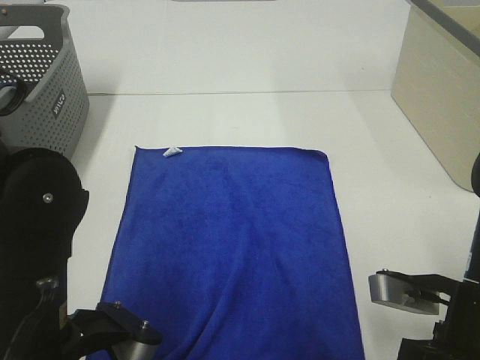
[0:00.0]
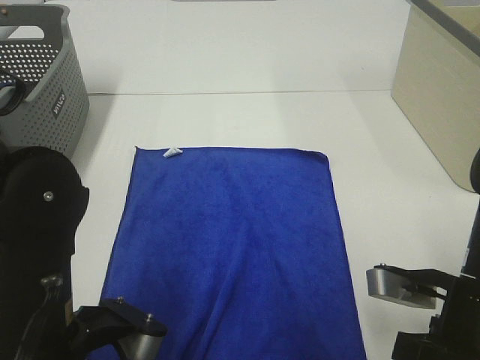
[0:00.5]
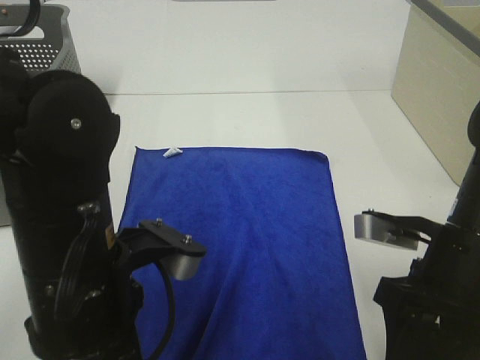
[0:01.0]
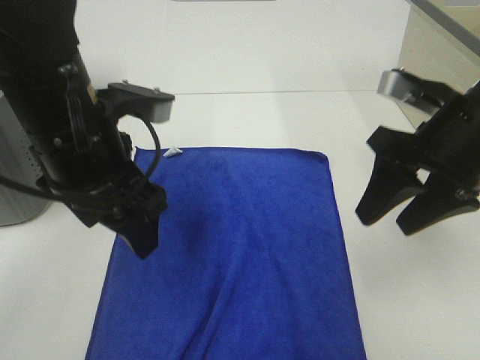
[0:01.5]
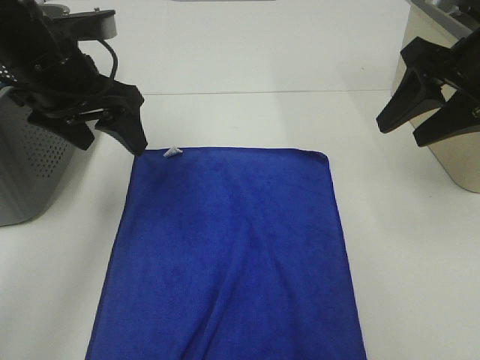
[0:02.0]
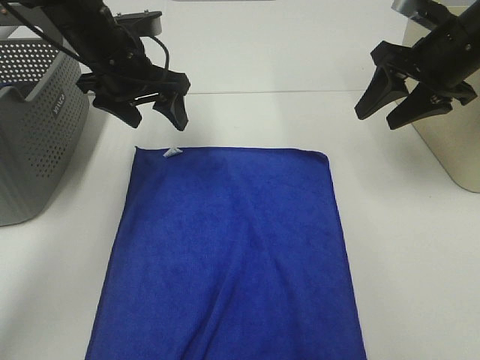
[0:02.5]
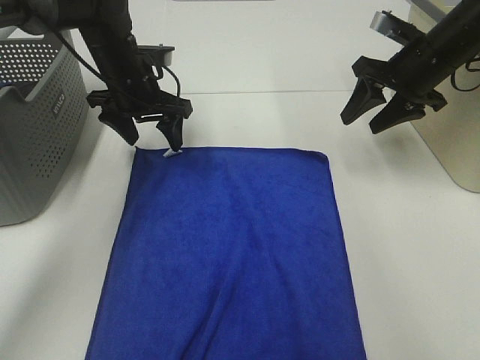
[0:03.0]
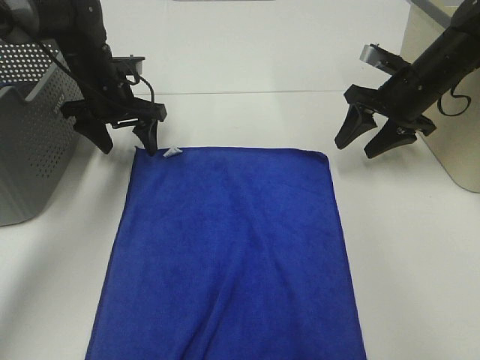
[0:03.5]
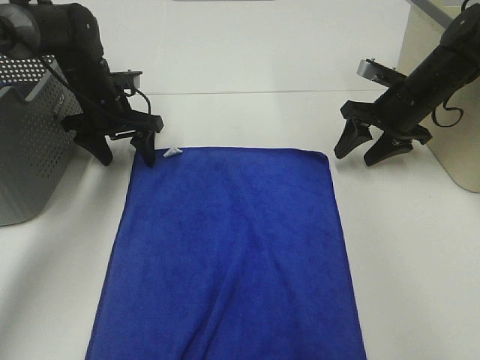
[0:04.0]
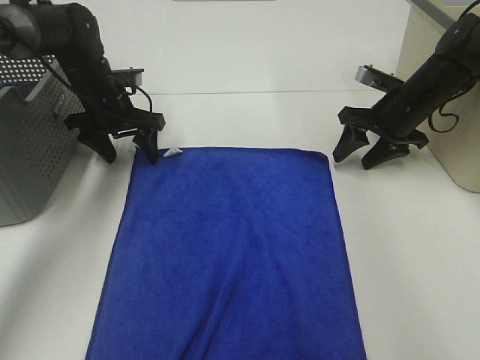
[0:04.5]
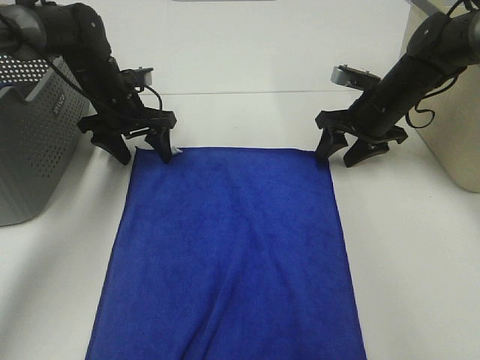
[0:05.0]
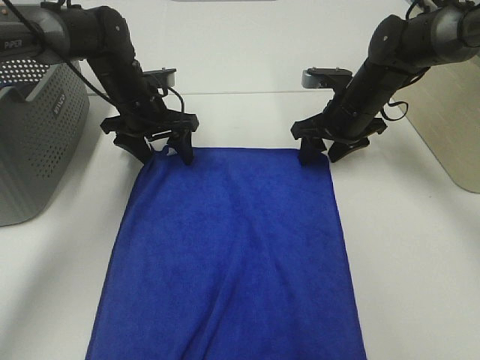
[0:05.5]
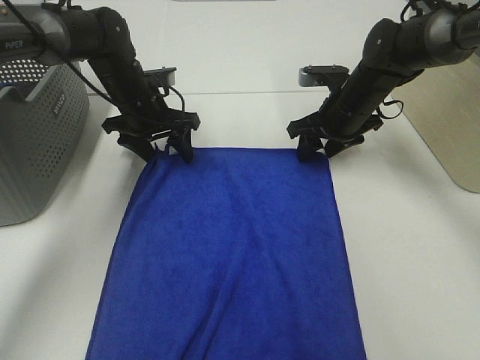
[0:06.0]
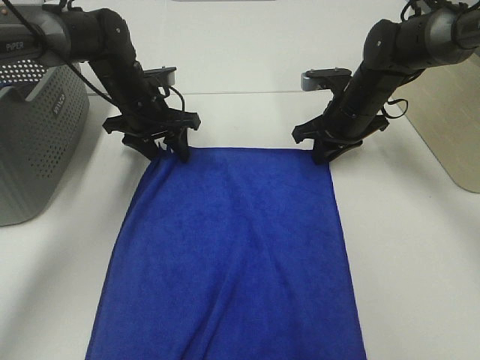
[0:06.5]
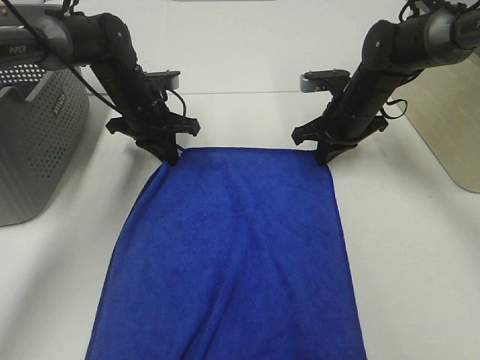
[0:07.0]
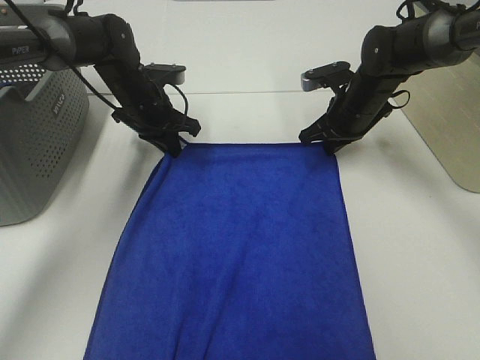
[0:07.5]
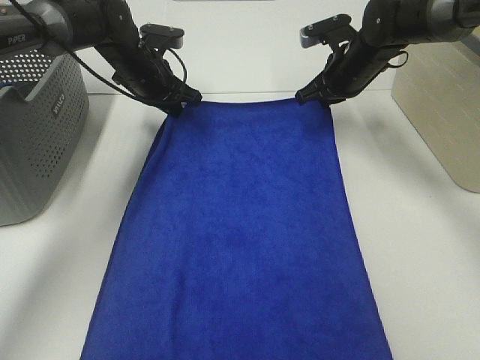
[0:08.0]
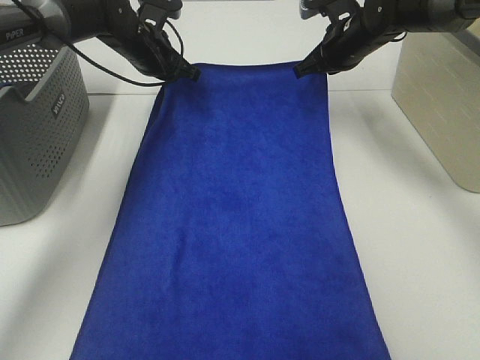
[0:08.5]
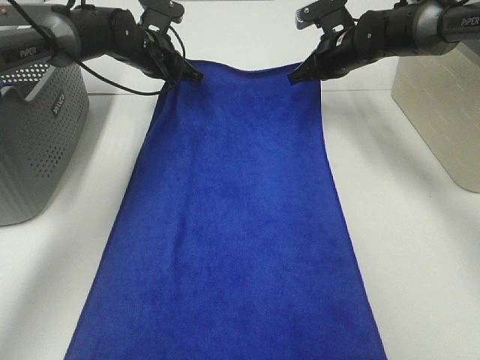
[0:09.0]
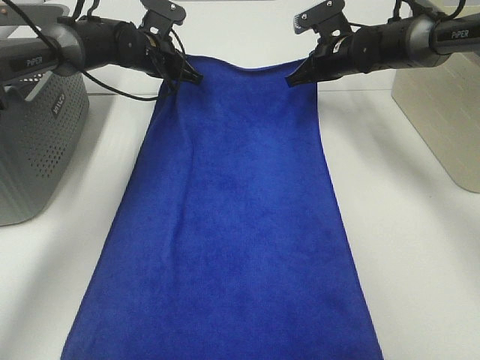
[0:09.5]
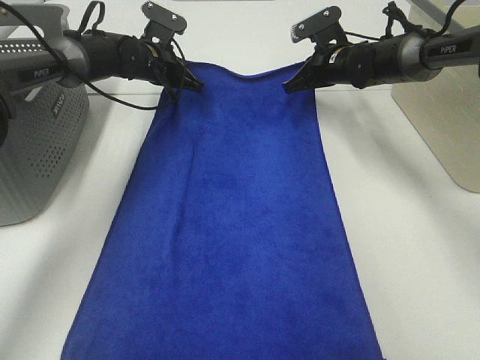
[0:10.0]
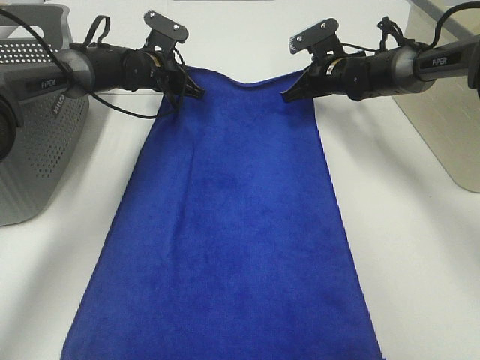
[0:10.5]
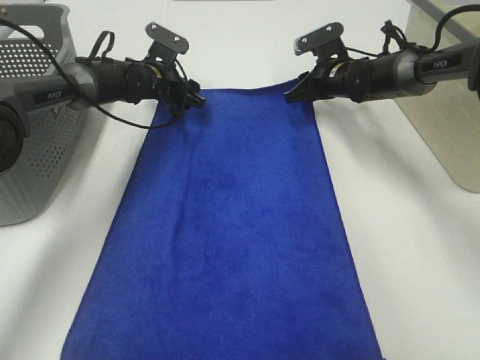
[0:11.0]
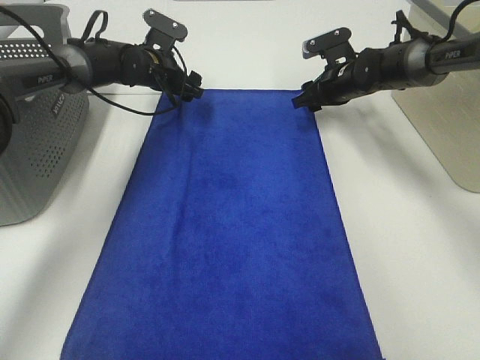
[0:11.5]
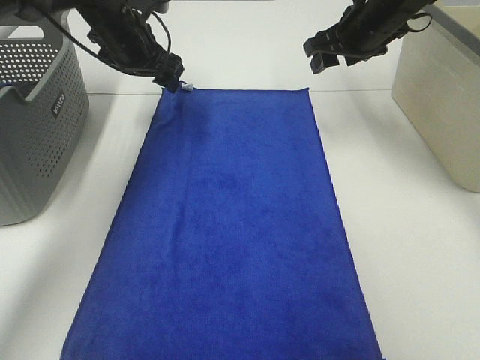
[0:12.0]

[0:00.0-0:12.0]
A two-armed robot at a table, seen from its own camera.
Task of the whole recording: Remove the towel and place it.
Step, 0:00.0 to 0:04.5: Left hand:adjust the blue towel.
Step, 0:00.0 to 0:04.5: Right hand:adjust the blue towel.
0:00.0 to 0:02.0: Both grippers move forward and upward, approximately 25 cm. The left gripper opens.
0:02.0 to 0:04.0: The left gripper goes some 20 cm forward and downward. The right gripper moves downward and forward, roughly 20 cm.
0:04.0 to 0:06.0: The left gripper shifts approximately 5 cm to the right; the right gripper is displaced to the left by approximately 10 cm.
0:06.0 to 0:08.0: The right gripper goes some 5 cm upward, and closes up; the left gripper moves about 5 cm, and closes its fingers.
0:08.0 to 0:10.0: The right gripper changes place by about 5 cm.
0:10.0 to 0:12.0: The left gripper travels upward by about 10 cm, and opens its fingers; the right gripper is displaced upward and backward by some 10 cm, and opens its fingers.

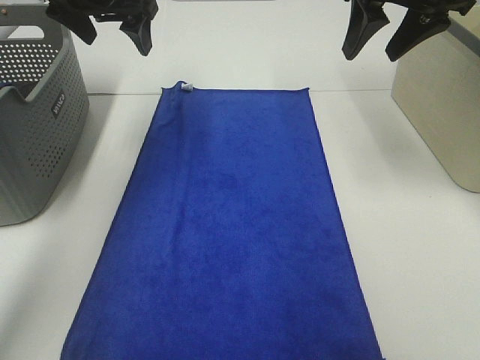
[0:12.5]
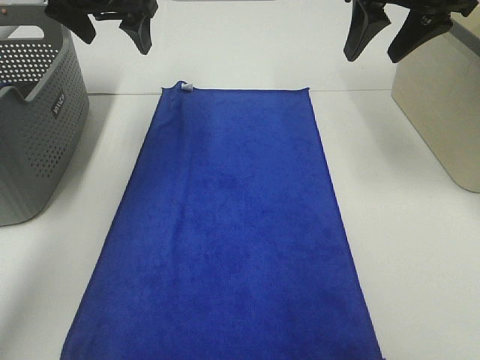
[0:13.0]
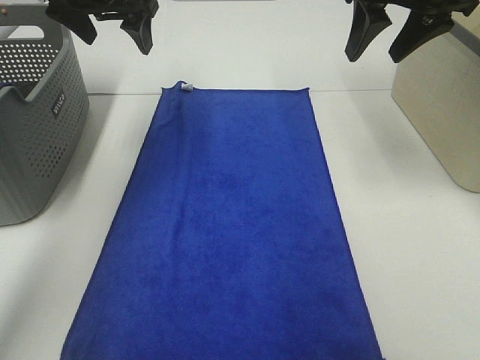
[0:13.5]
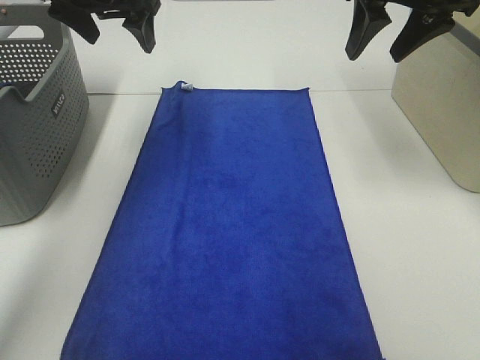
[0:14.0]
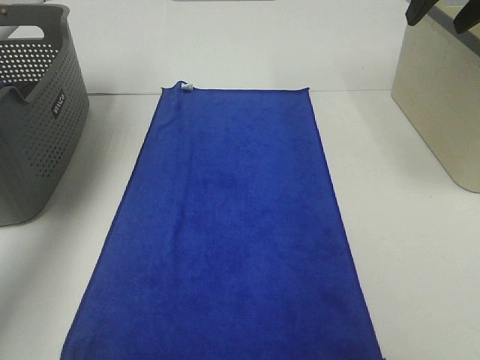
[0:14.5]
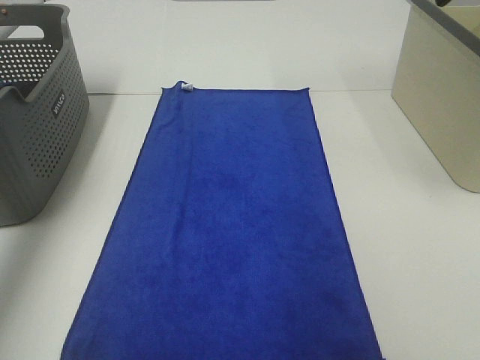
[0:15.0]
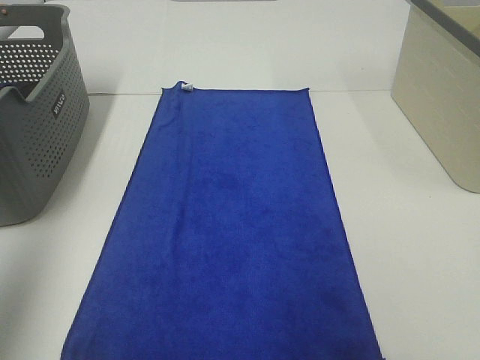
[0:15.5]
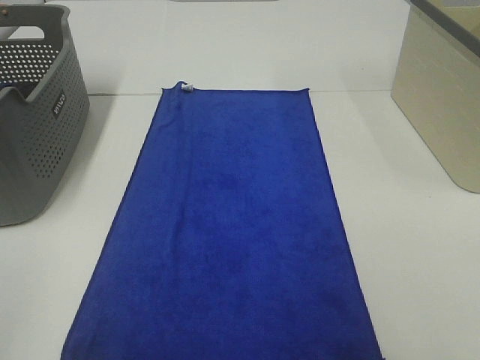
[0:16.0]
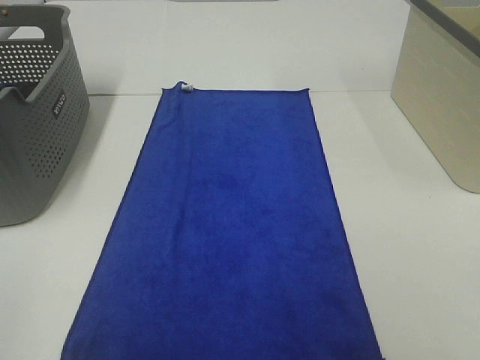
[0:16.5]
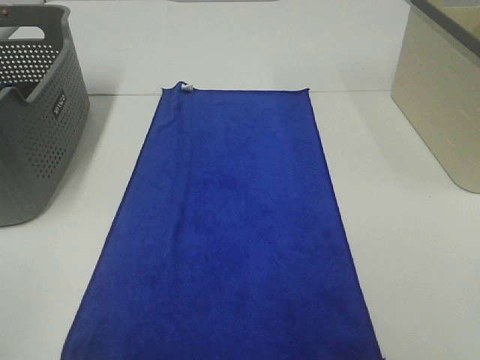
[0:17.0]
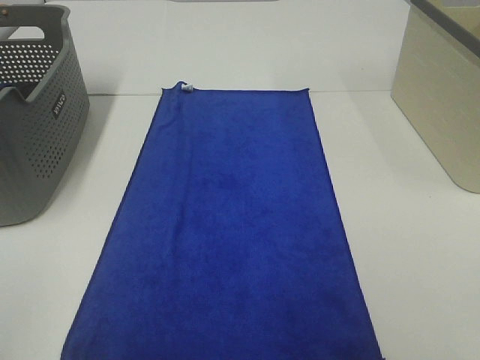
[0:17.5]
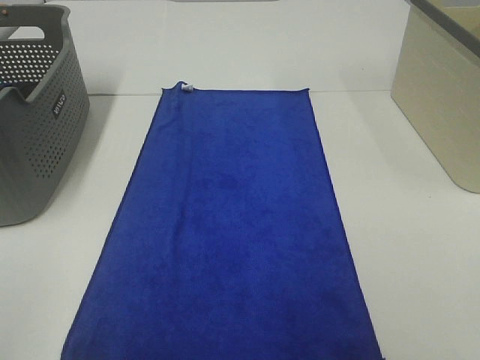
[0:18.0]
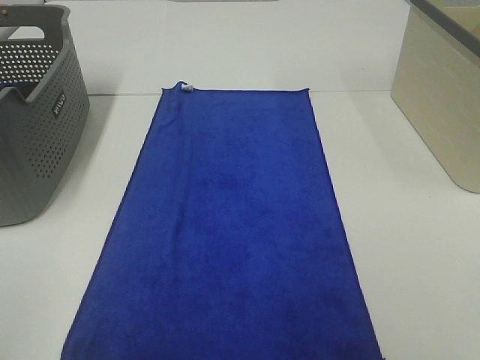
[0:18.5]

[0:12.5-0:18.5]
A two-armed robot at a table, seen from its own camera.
Task of the whole recording: Remove the towel and place it.
0:12.5 to 0:14.5: The right gripper is displaced to the right by roughly 5 cm; the left gripper moves to the left and upward, some 15 cm.
0:14.5 to 0:16.5: Both grippers travel together backward, roughly 40 cm.

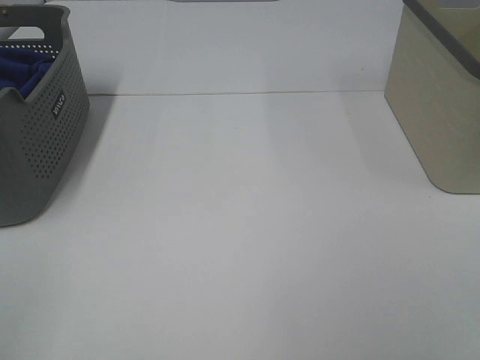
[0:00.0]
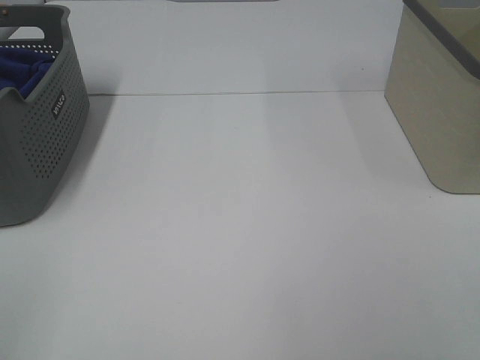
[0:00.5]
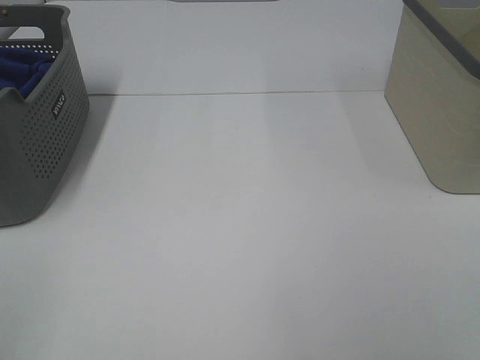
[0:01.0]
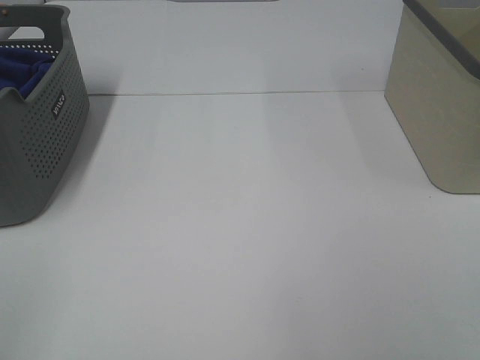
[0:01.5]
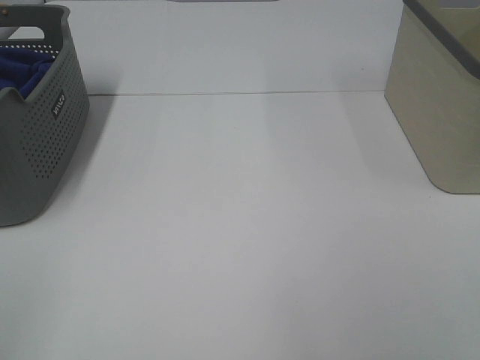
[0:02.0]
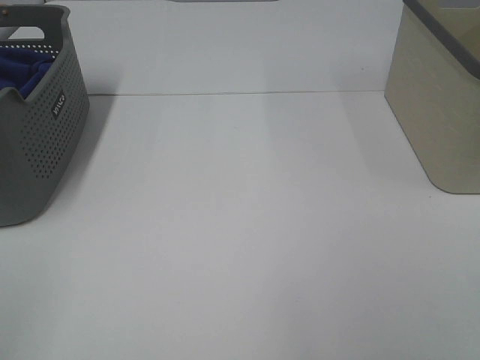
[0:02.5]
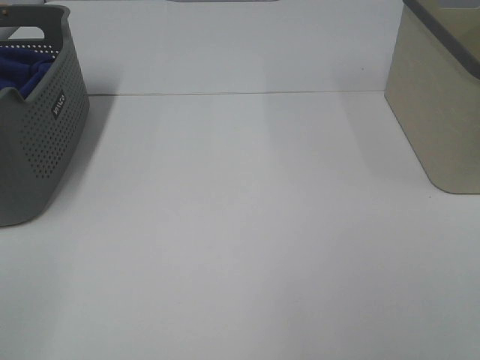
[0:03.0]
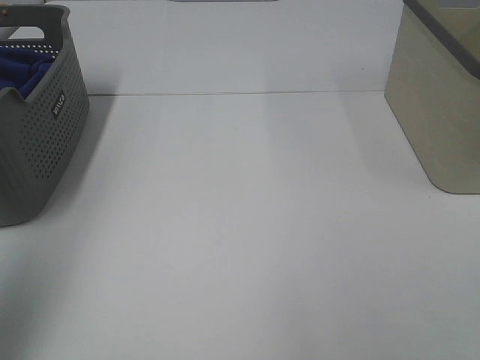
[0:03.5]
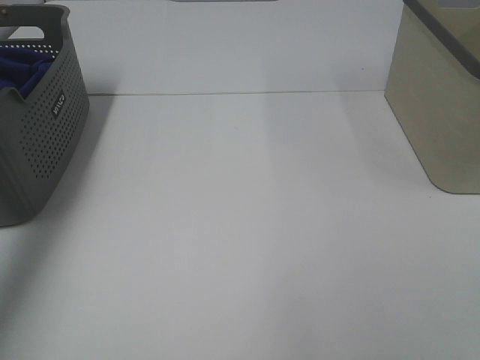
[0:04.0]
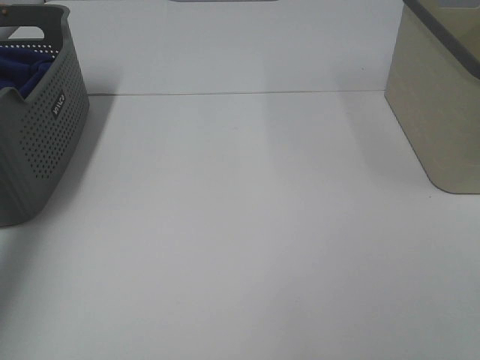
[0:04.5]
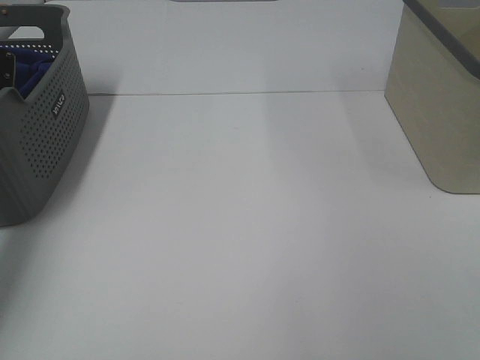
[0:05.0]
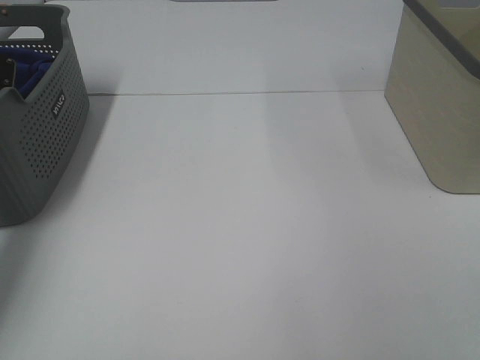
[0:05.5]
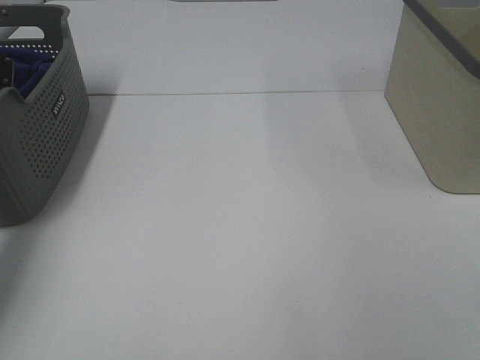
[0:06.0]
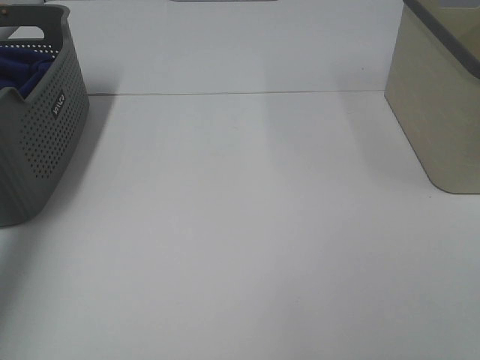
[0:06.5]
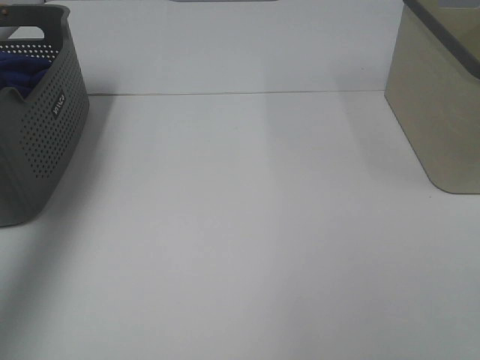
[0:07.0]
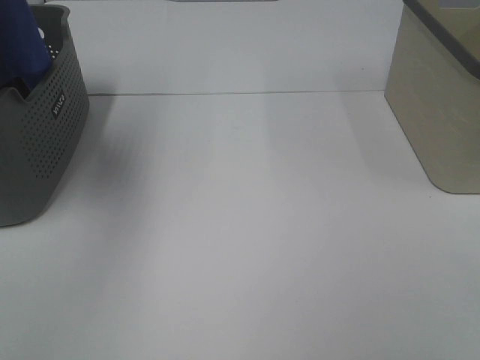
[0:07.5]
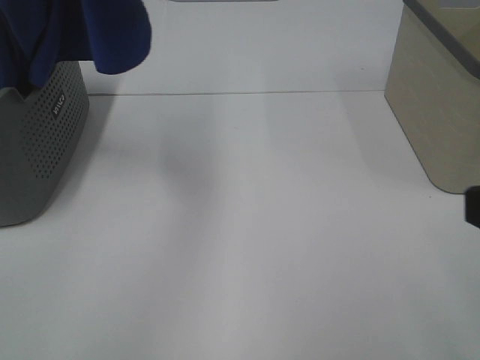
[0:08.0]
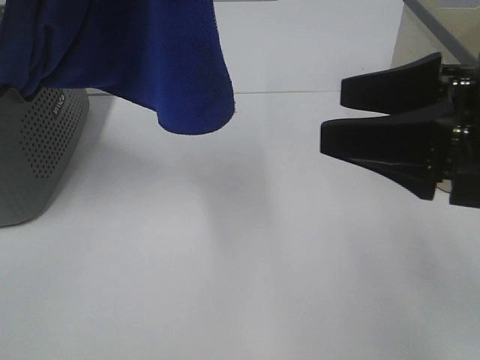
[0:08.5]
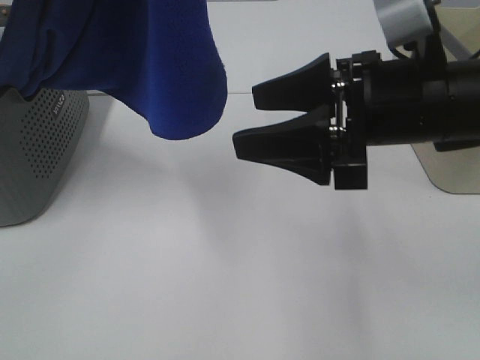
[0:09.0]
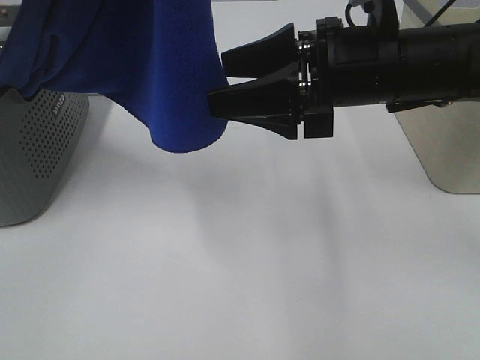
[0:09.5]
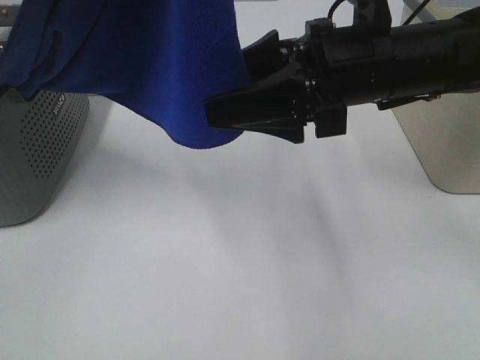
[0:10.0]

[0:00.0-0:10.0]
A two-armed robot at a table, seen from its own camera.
Task of the whole recording: Remove the towel and place it.
0:00.0 to 0:02.0: The two grippers keep their place.
0:02.0 to 0:04.0: The left gripper moves forward, about 40 cm.
0:04.0 to 0:06.0: The left gripper is displaced downward and forward by approximately 20 cm, and closes its fingers.
0:06.0 to 0:08.0: The right gripper travels forward by roughly 10 cm; the left gripper is displaced upward, to the right and backward by approximately 50 cm.
0:08.0 to 0:10.0: The left gripper heads to the right, covering roughly 5 cm; the right gripper heads forward and to the left, covering about 25 cm.
